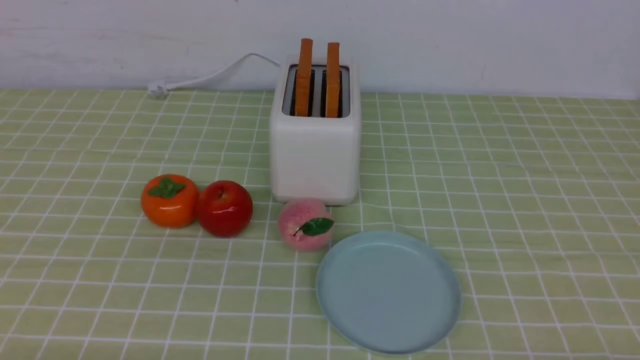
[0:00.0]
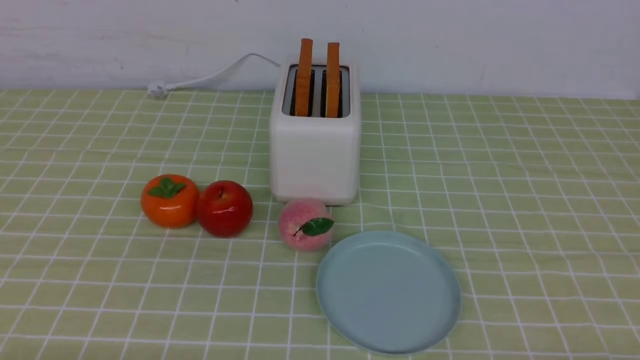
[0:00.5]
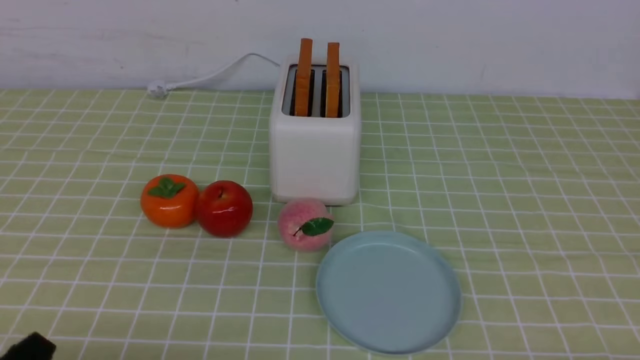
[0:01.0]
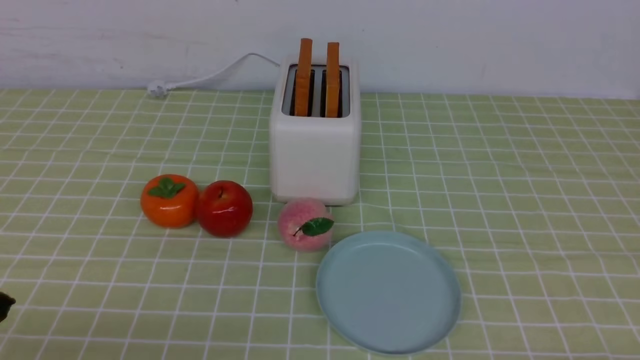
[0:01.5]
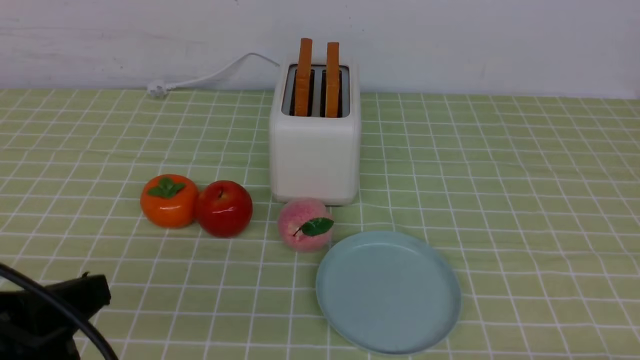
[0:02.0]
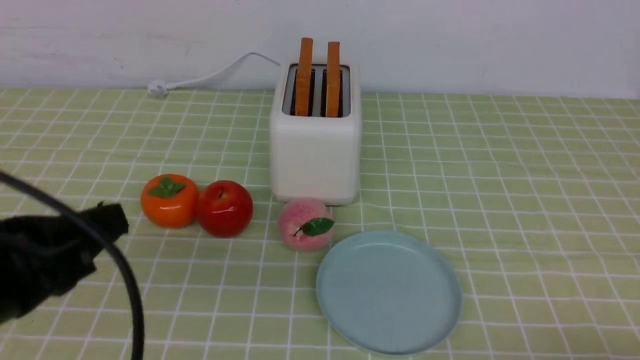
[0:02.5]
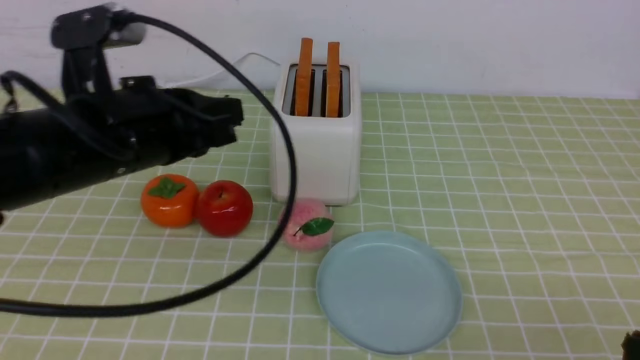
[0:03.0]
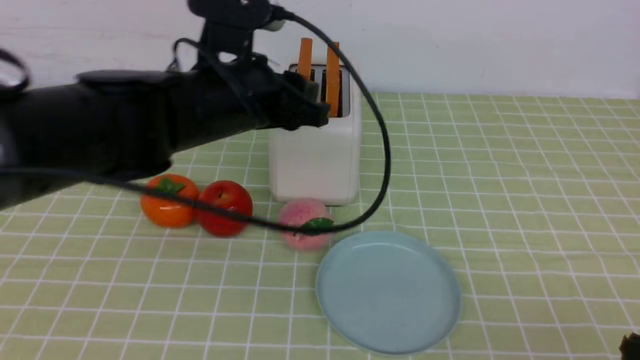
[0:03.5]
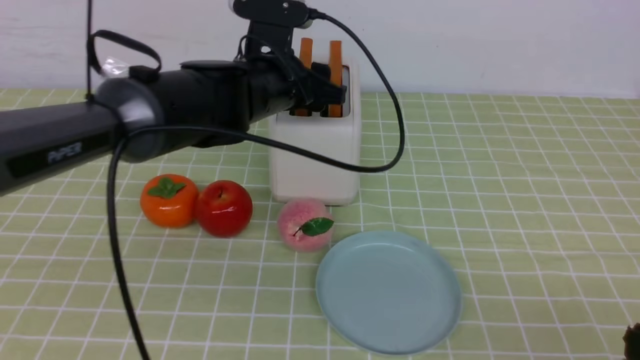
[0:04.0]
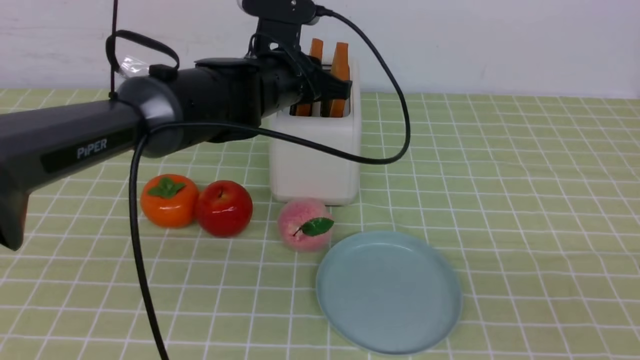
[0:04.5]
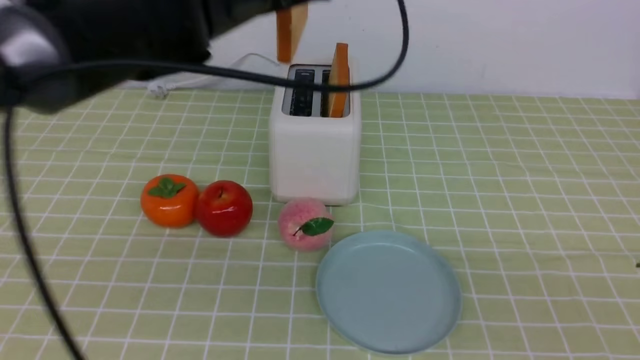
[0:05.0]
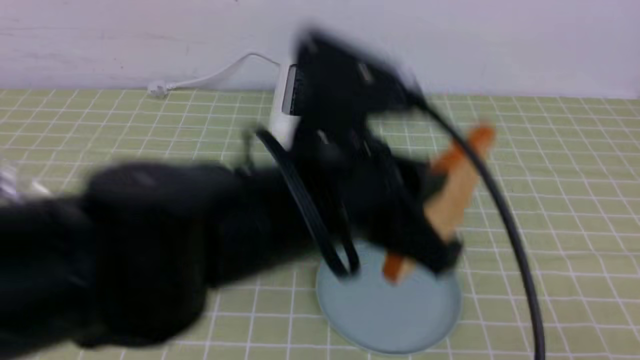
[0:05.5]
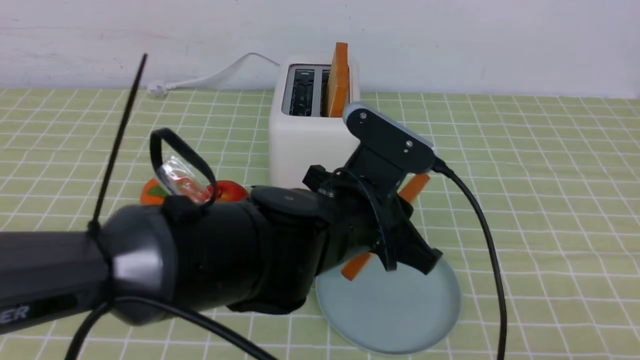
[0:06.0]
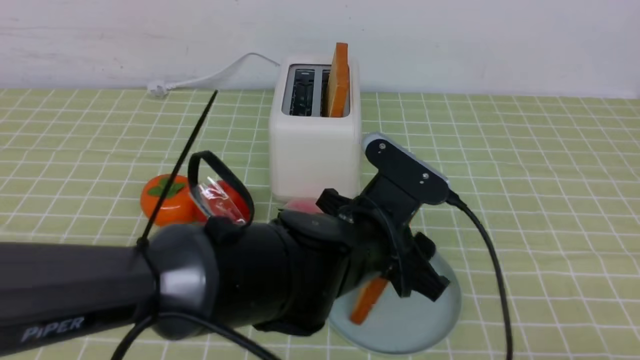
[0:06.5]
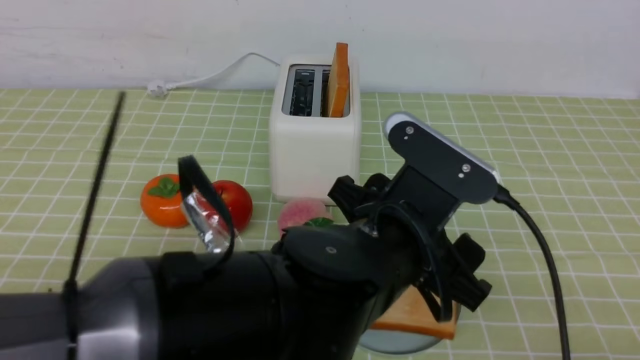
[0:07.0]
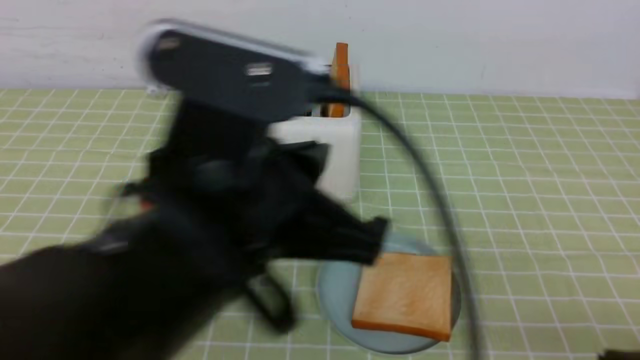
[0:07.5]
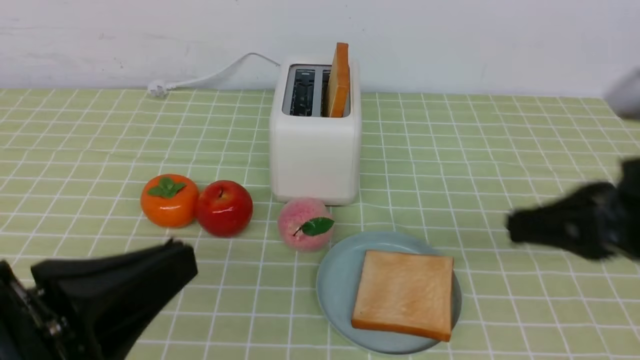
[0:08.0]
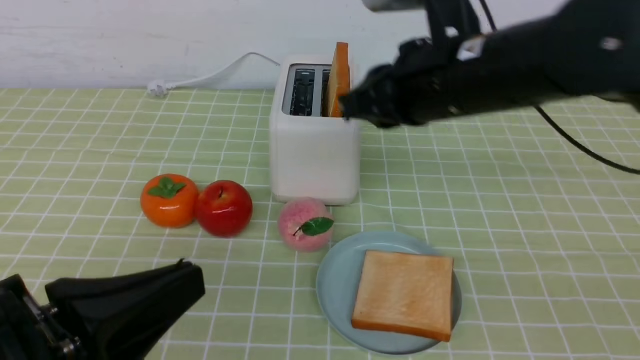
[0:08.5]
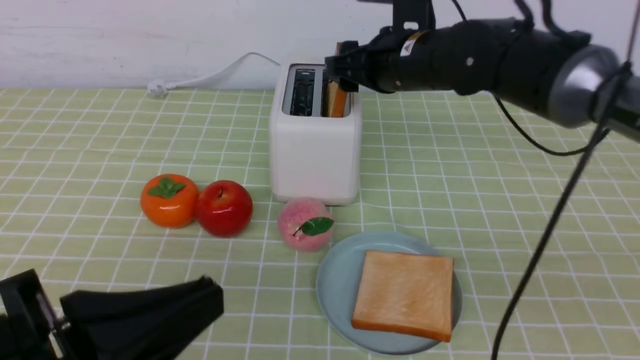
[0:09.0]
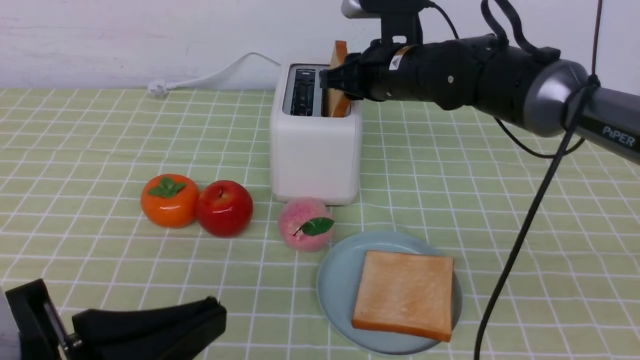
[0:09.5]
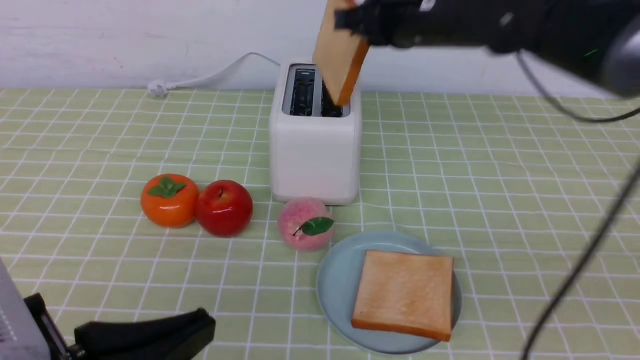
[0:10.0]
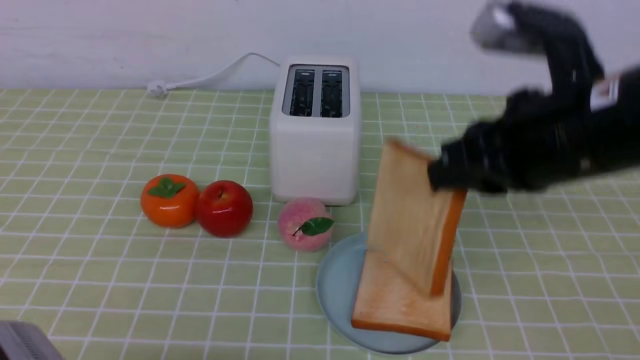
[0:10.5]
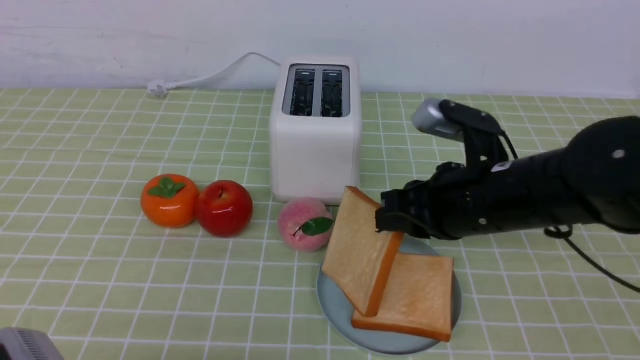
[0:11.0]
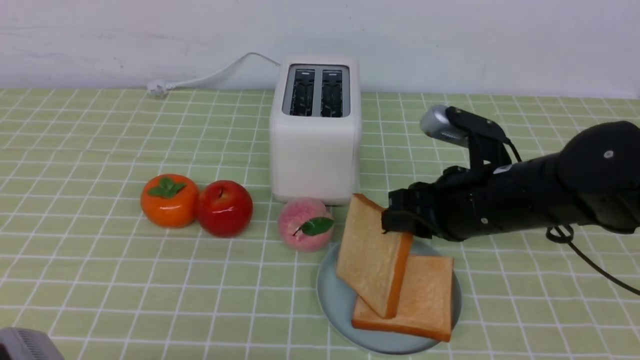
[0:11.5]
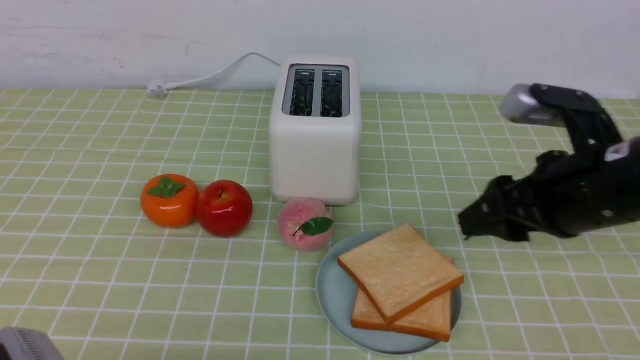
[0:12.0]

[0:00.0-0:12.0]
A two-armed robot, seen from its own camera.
Task of the whole recording: take toasted bread from bread machine on green coffee tablecloth place on plate.
Step, 0:00.0 to 0:04.5: use the left arm to take out a slice of bread.
Step, 0:05.5 to 0:07.0: use the left arm to put a slice of bread into the empty plate.
Step, 0:07.5 to 0:10.0: use the right arm to take out a slice of bread.
Step, 0:10.5 to 0:11.5: use the right arm to put a slice of bread into the plate.
0:00.0 to 0:02.0: The left gripper goes roughly 10 cm upward, and closes.
0:02.0 to 0:04.0: The left gripper travels forward and to the right by approximately 35 cm, and opens, while the right gripper heads upward, covering about 10 cm, and closes up.
0:04.0 to 0:06.0: The left gripper heads backward and to the right, covering roughly 15 cm, and closes its fingers.
0:06.0 to 0:08.0: The left gripper shifts roughly 25 cm to the left and backward, and opens, then closes once more. The right gripper is displaced forward by about 15 cm.
0:08.0 to 0:10.0: The right gripper shifts approximately 20 cm forward and to the left, and opens, then closes once more.
0:10.0 to 0:12.0: The right gripper moves forward and backward over roughly 15 cm, changing direction 2 times, and opens its fingers; the left gripper is displaced downward by approximately 5 cm.

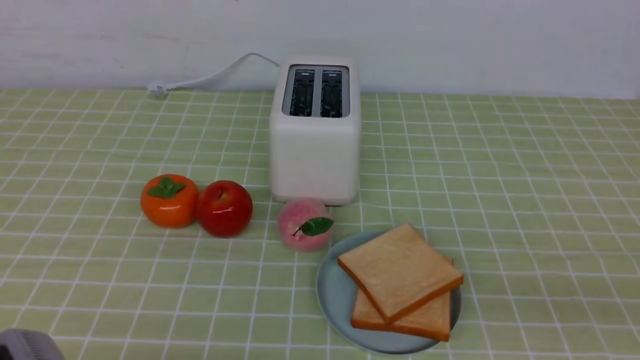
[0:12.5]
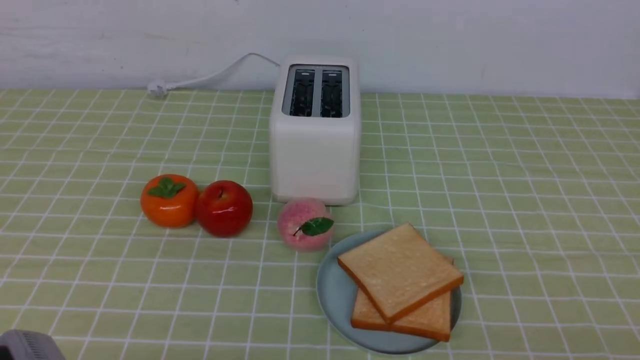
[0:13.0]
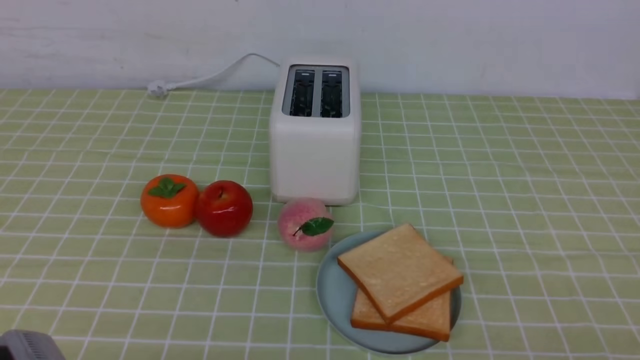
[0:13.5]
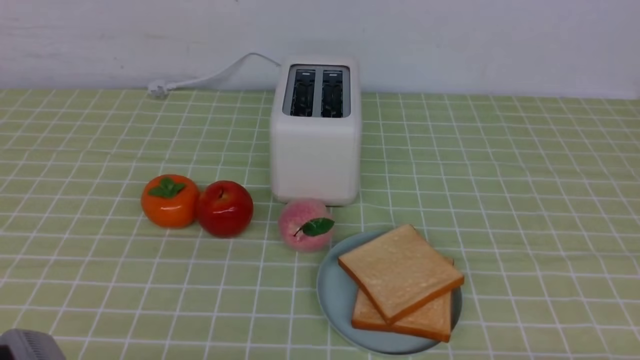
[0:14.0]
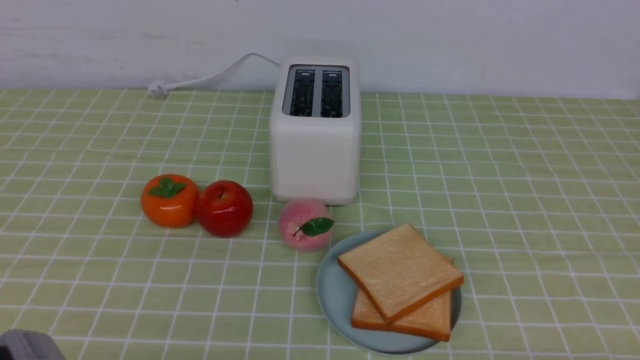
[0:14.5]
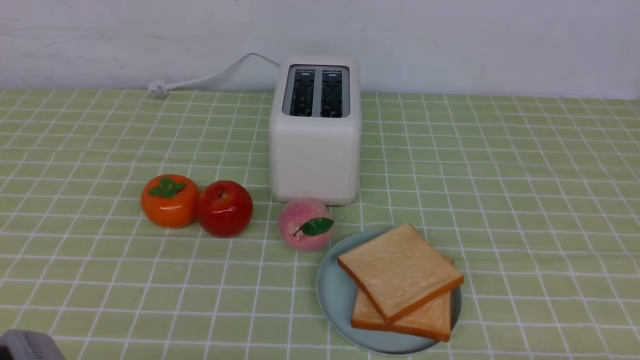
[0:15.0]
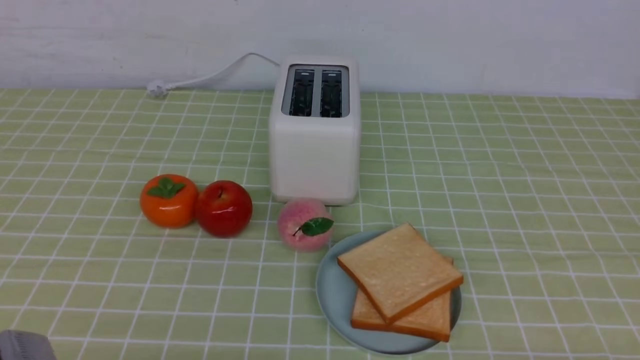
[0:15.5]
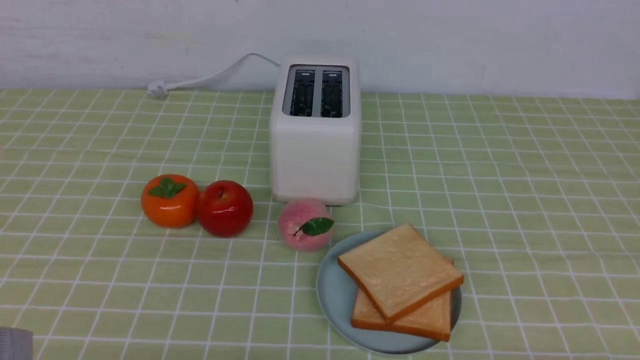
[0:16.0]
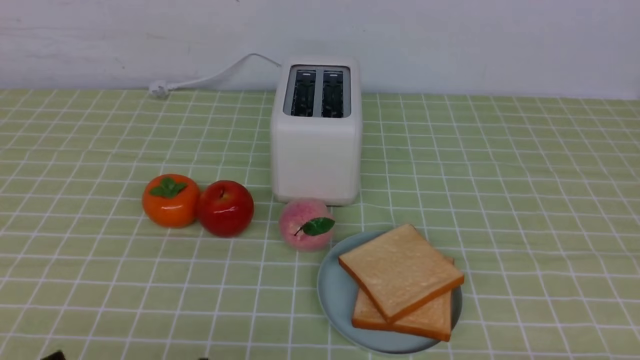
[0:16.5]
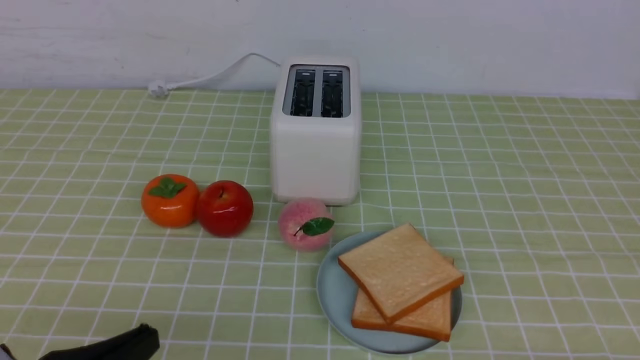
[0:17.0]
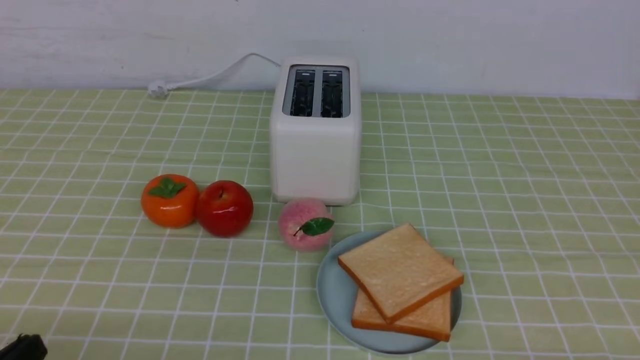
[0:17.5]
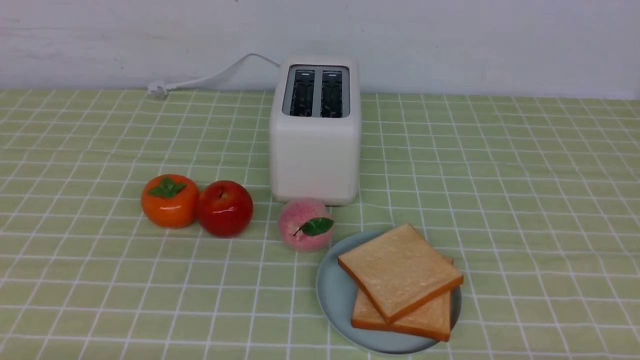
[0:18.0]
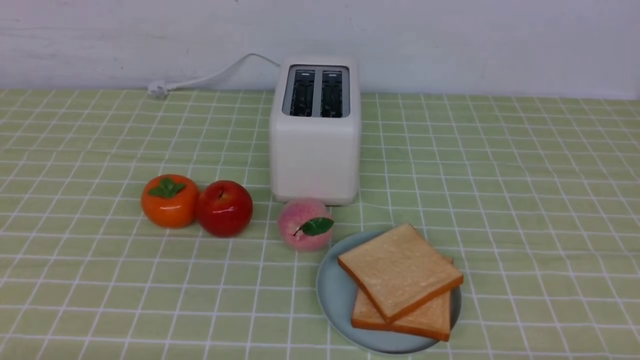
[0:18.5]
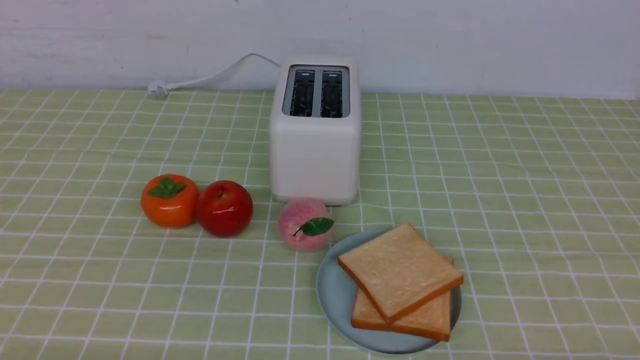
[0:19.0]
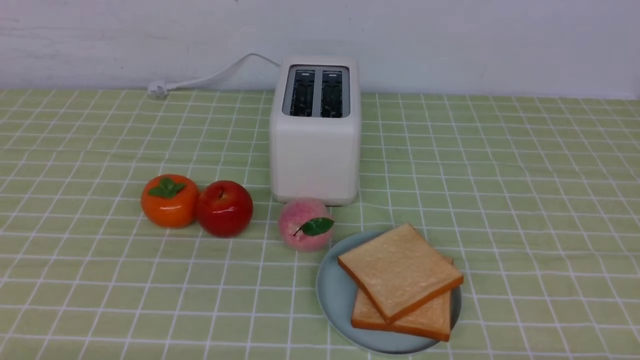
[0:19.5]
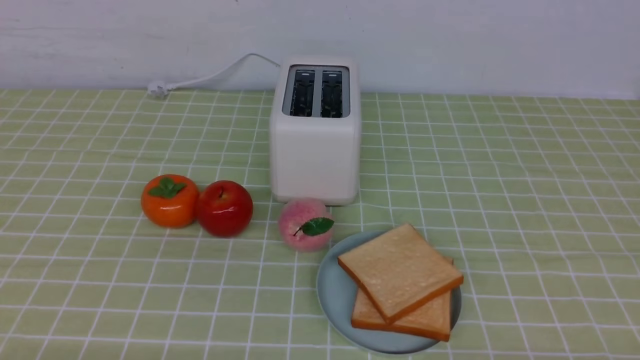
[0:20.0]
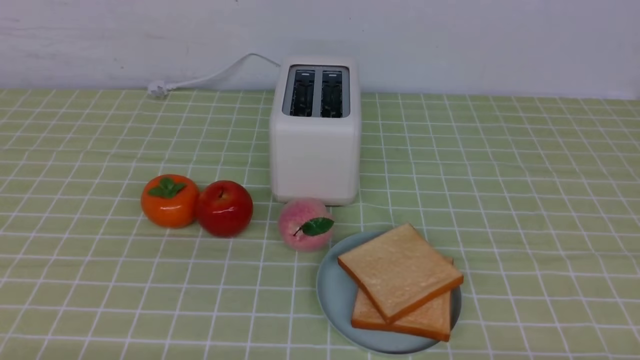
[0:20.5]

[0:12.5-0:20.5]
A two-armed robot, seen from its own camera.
Task of the whole recording: take toasted bread from bread machine on green coffee tablecloth place on plate.
0:18.5 to 0:20.5: Both grippers stay about where they are.
